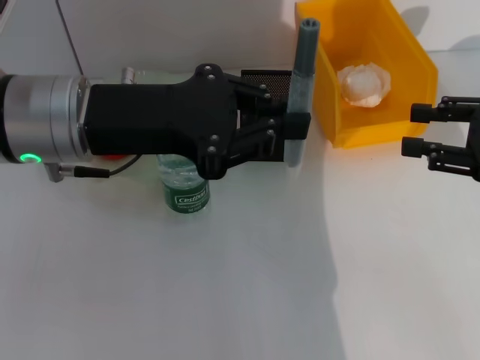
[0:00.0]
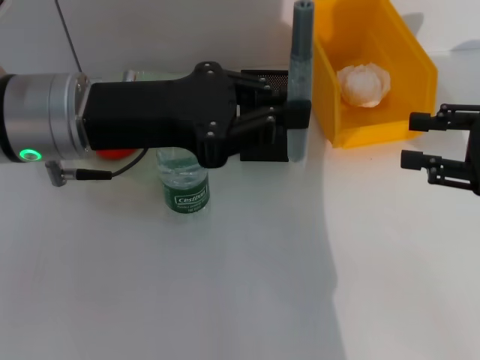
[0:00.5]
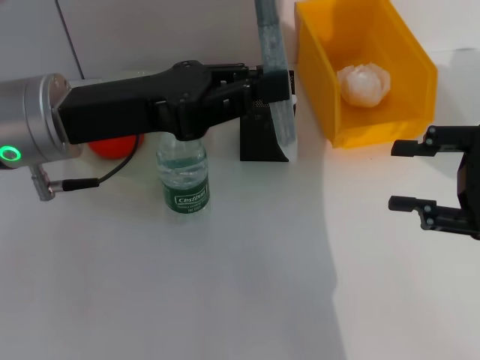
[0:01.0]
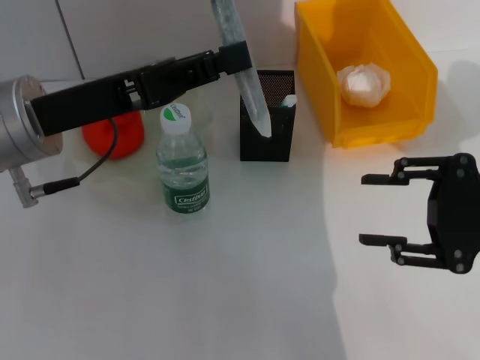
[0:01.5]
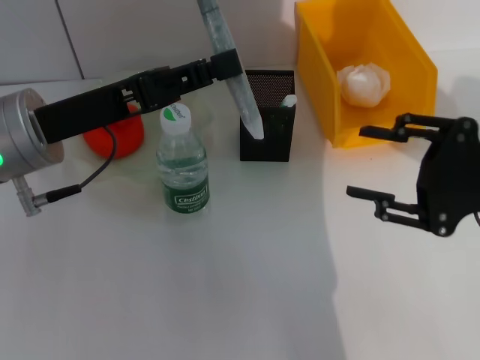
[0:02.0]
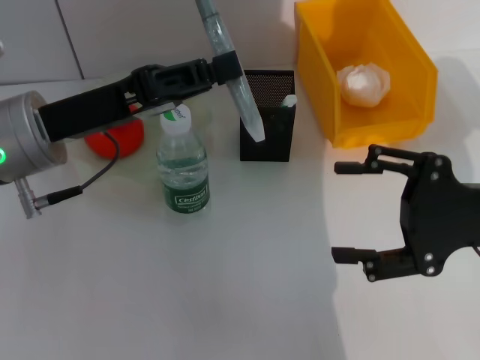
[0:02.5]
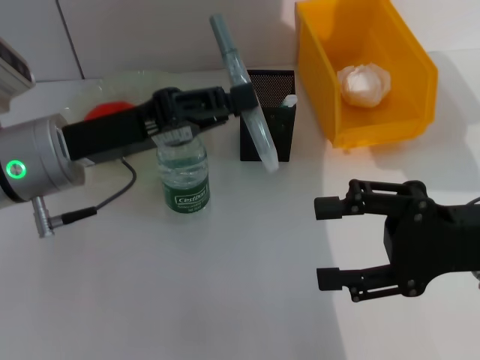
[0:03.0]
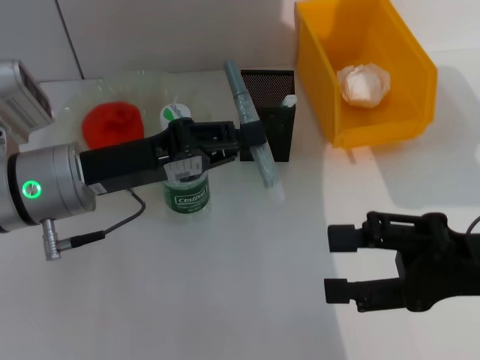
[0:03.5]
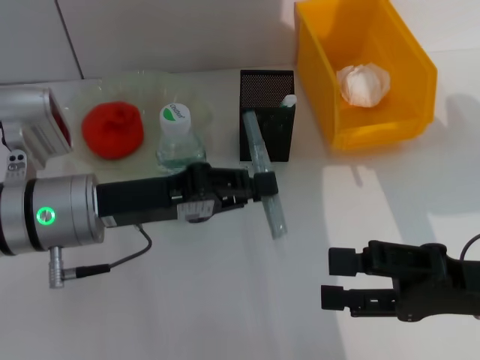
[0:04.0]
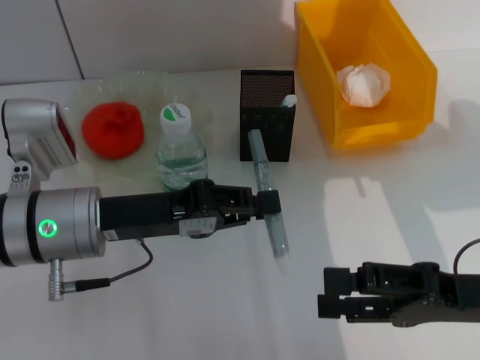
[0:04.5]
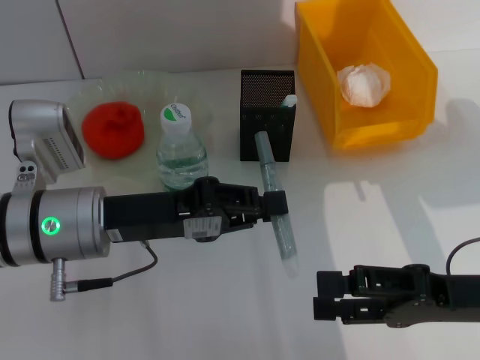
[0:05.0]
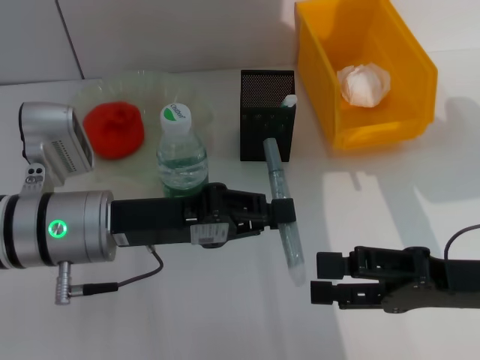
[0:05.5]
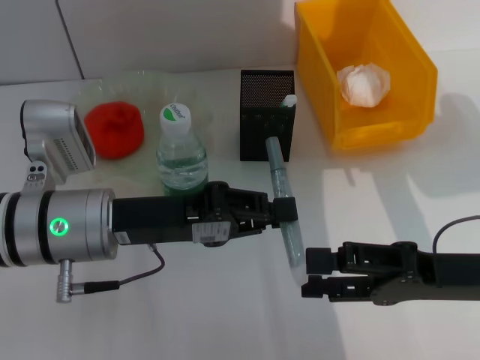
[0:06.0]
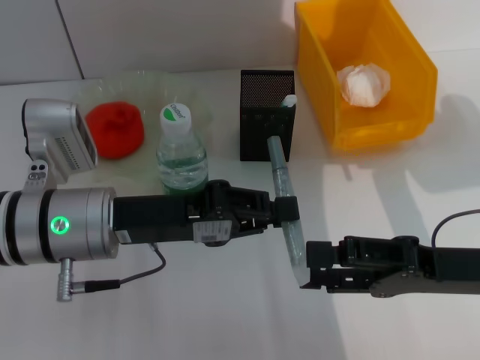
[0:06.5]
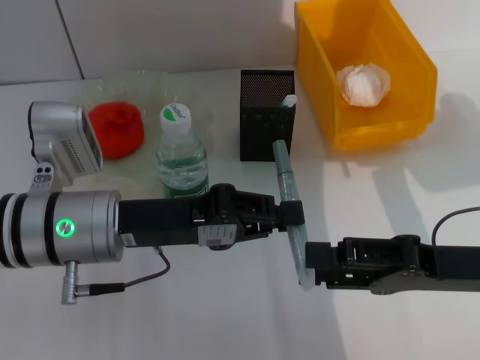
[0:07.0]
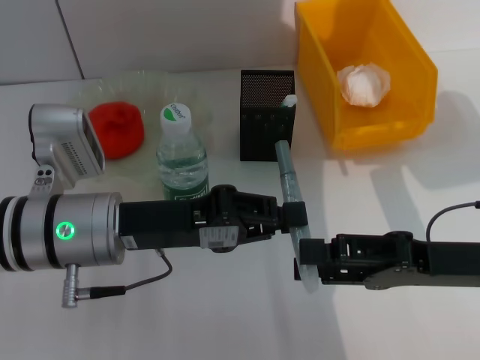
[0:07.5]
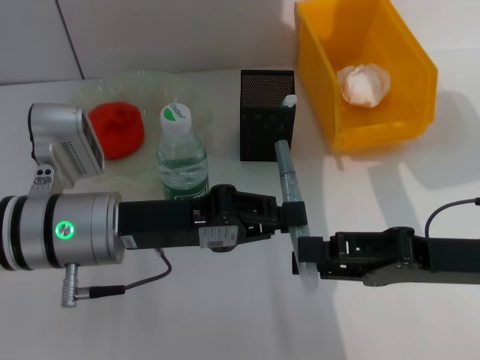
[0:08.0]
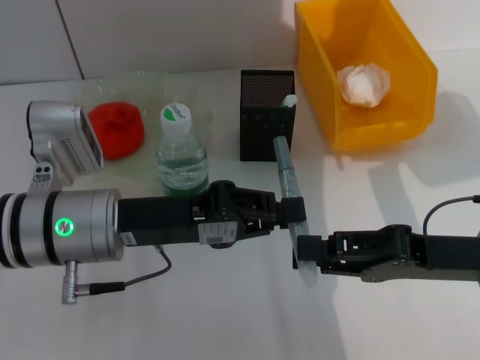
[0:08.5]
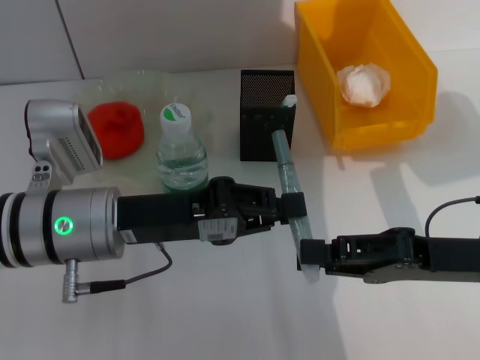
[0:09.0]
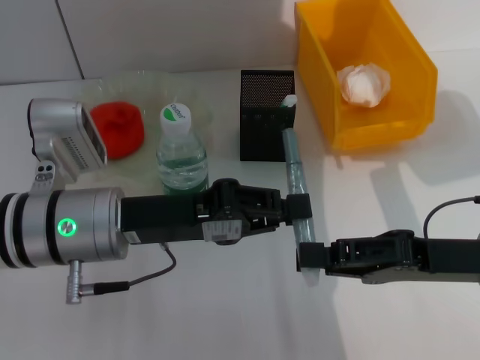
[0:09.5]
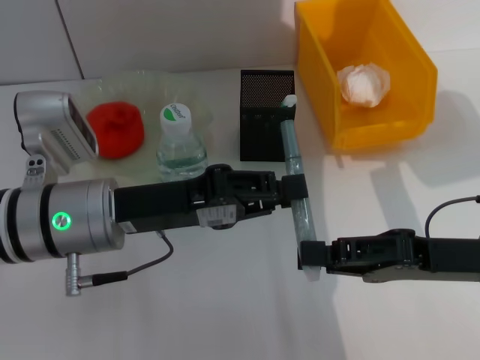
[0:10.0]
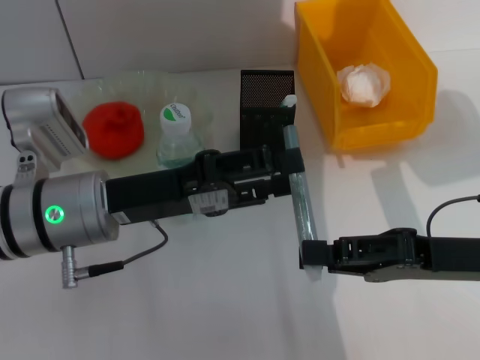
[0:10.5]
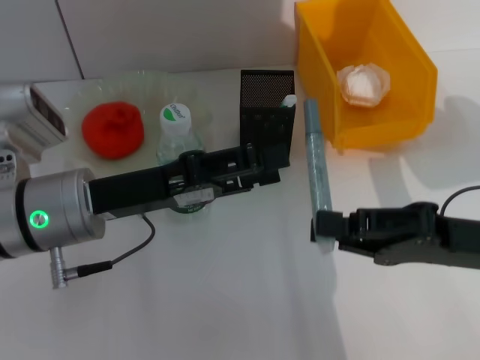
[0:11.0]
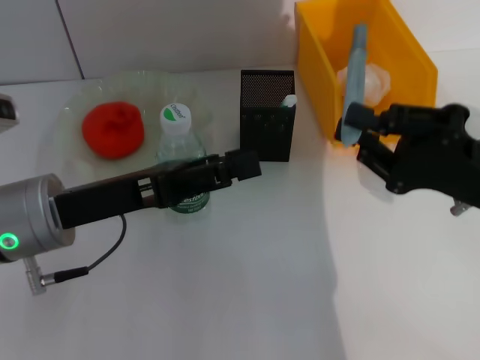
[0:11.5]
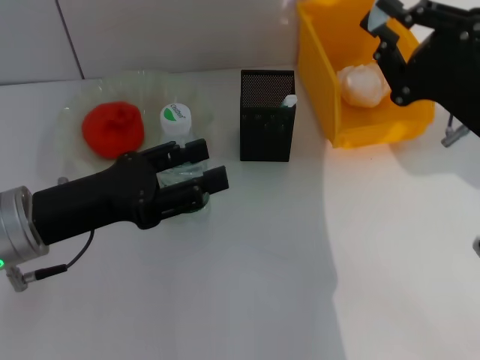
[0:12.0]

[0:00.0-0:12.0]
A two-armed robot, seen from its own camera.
Step, 0:00.0 to 0:10.0: Pass the gray glue from the left hand to the right hand.
0:00.0 to 0:02.0: The right gripper travels to the left by some 5 cm. Meanwhile the left gripper ends up about 5 cm from where it was.
0:02.0 to 0:04.0: The left gripper heads downward, covering some 5 cm. Meanwhile the right gripper is displaced backward by approximately 5 cm, and opens up.
0:06.0 to 0:08.0: The grippers stay close to where they were, moving slightly.
0:08.0 to 0:10.0: The right gripper closes.
0:10.0 to 0:12.0: The left gripper heads to the left, covering about 5 cm, and opens its fingers, while the right gripper heads forward, covering about 5 cm.

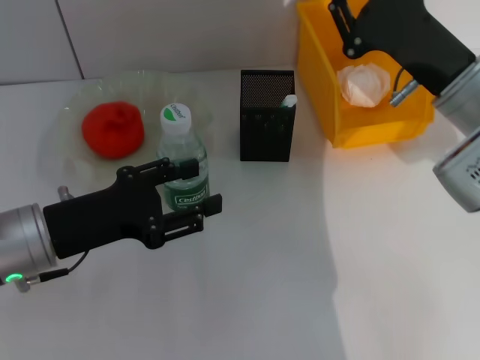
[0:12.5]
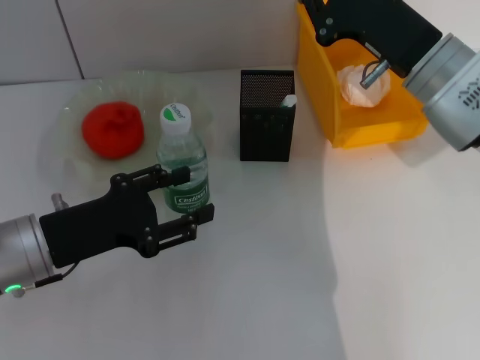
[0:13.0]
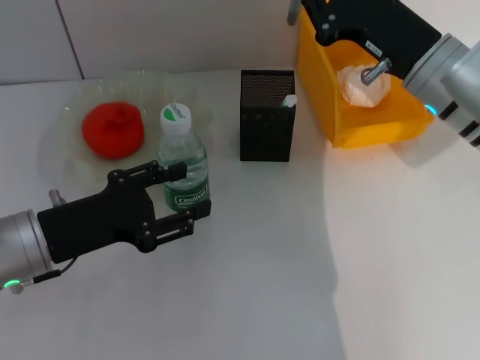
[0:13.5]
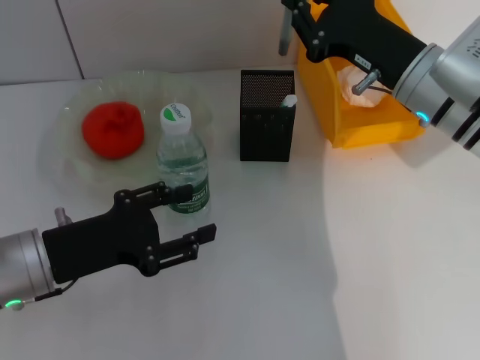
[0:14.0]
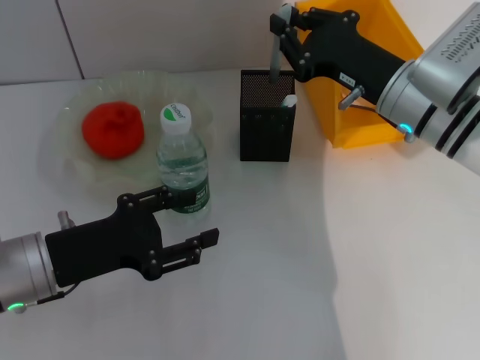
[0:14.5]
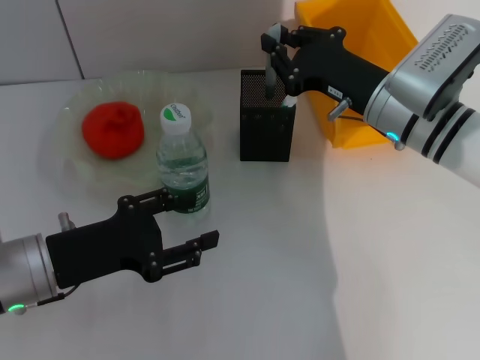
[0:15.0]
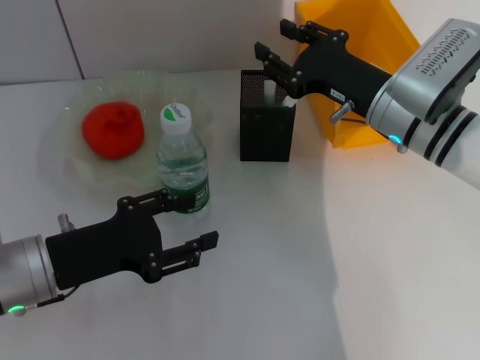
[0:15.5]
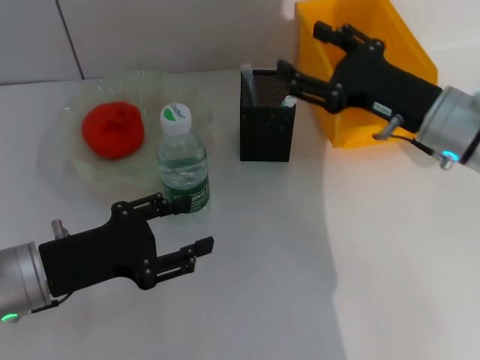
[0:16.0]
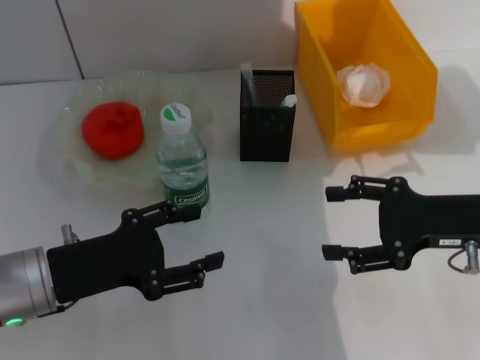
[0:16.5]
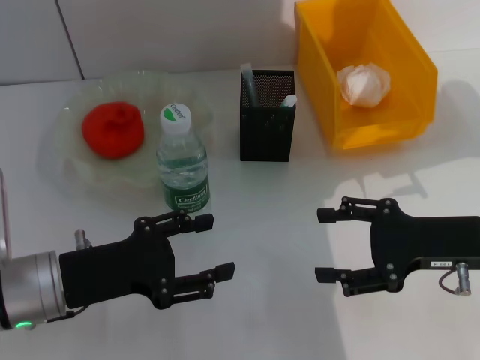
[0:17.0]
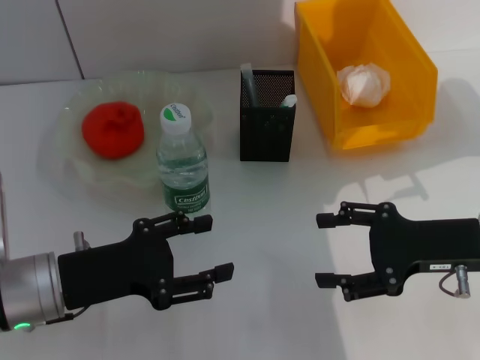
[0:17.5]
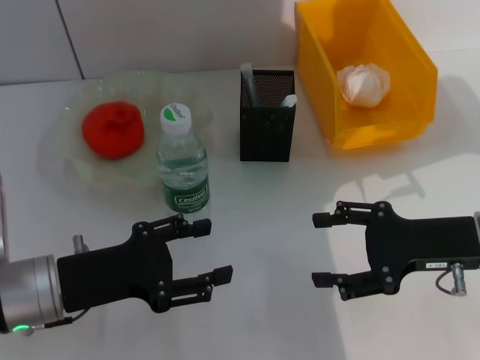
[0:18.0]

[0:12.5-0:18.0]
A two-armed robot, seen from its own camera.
Step, 0:12.5 to 0:15.5: Place the gray glue into the pen holder with the right hand.
0:14.5 to 0:16.0: The right gripper opens.
0:16.0 to 0:18.0: The right gripper travels backward by approximately 5 cm.

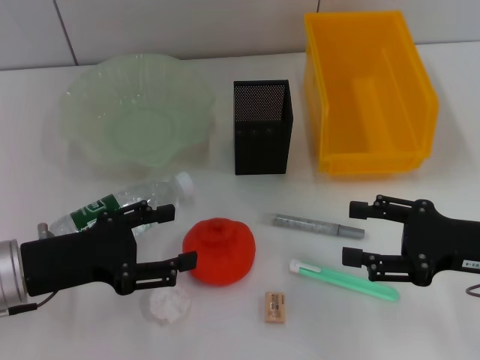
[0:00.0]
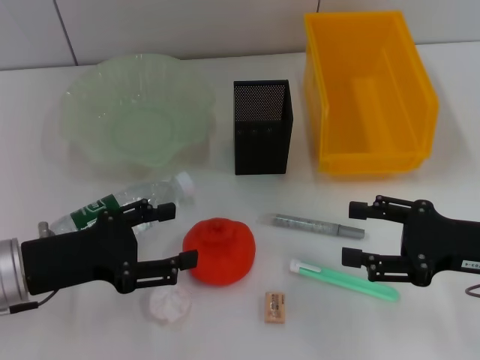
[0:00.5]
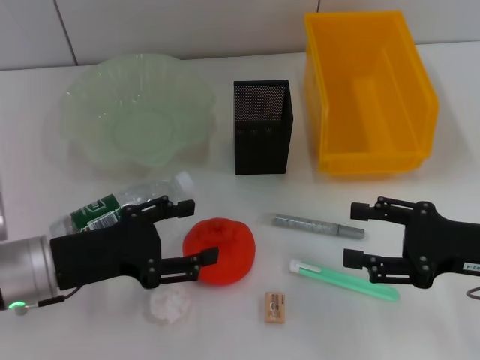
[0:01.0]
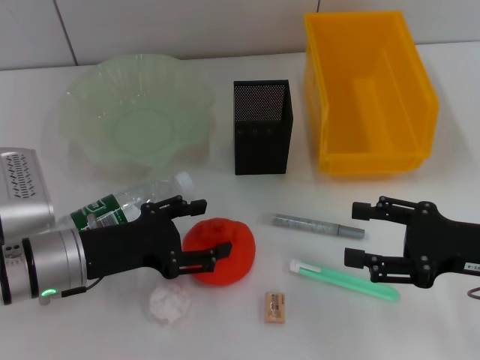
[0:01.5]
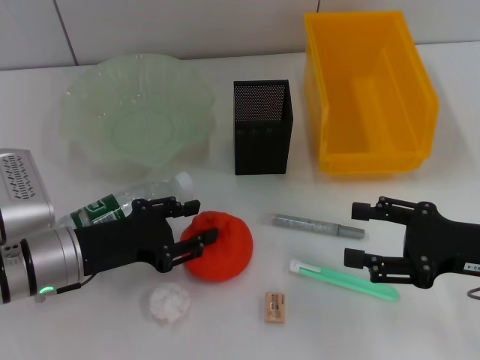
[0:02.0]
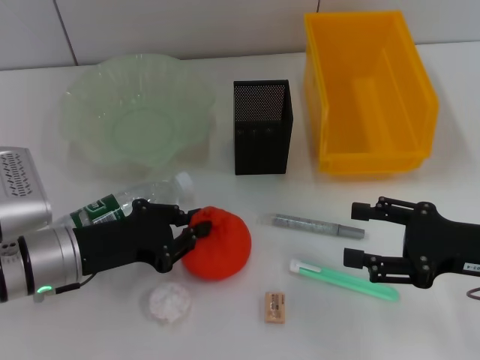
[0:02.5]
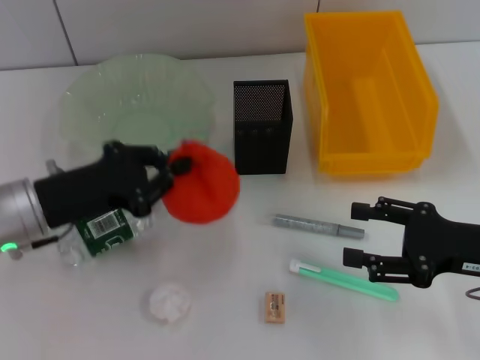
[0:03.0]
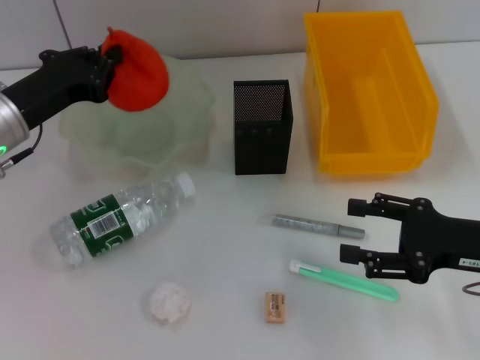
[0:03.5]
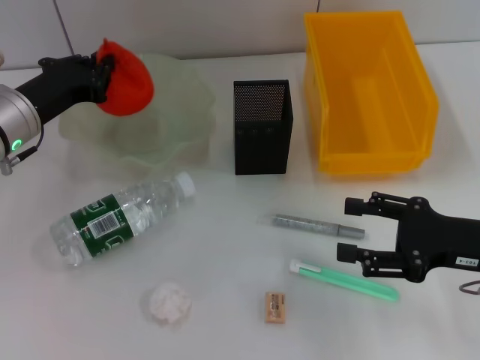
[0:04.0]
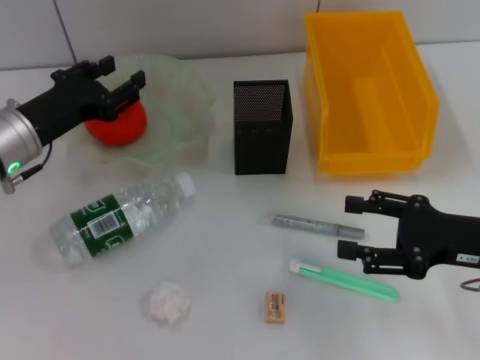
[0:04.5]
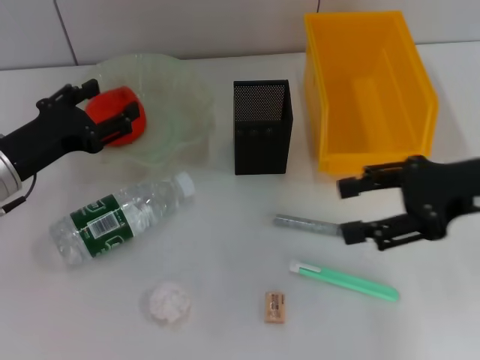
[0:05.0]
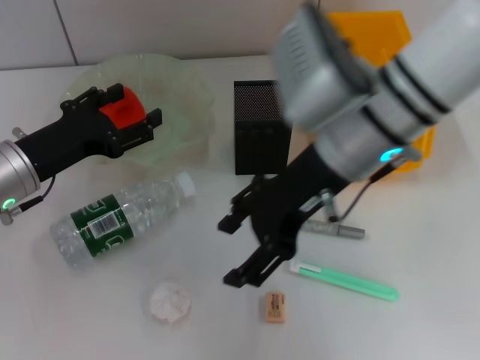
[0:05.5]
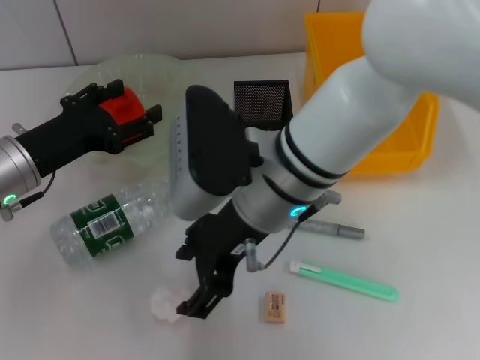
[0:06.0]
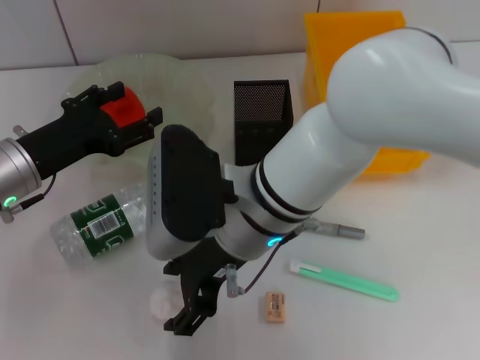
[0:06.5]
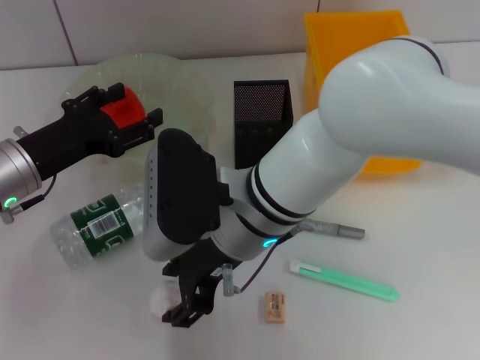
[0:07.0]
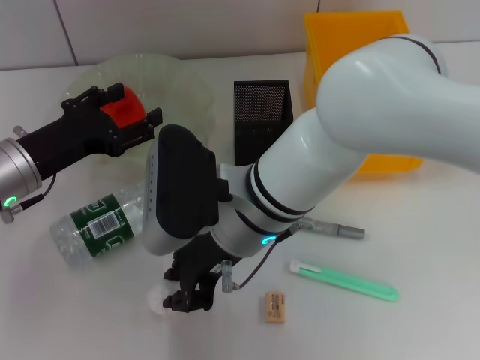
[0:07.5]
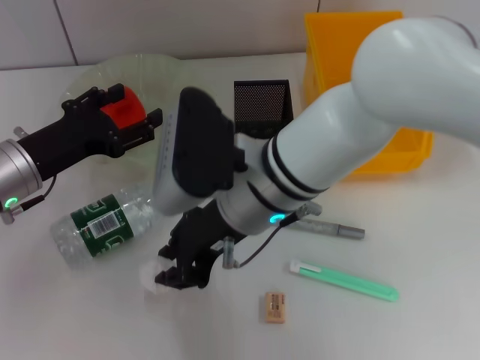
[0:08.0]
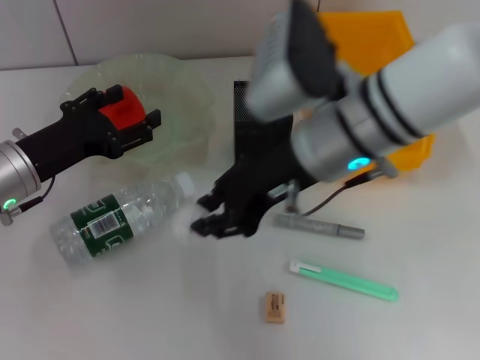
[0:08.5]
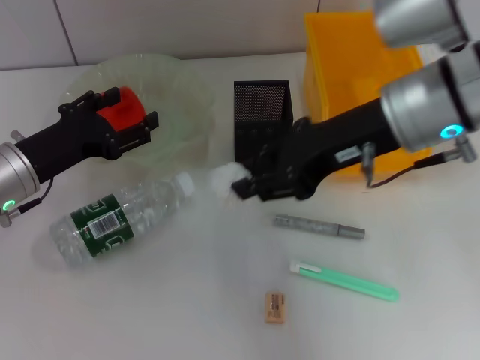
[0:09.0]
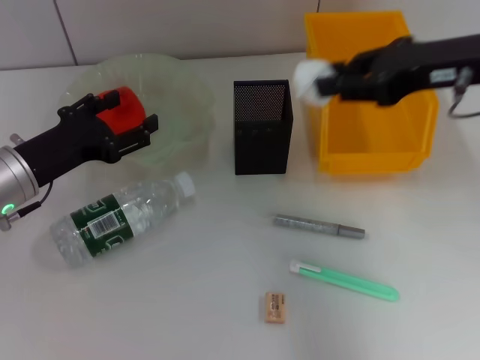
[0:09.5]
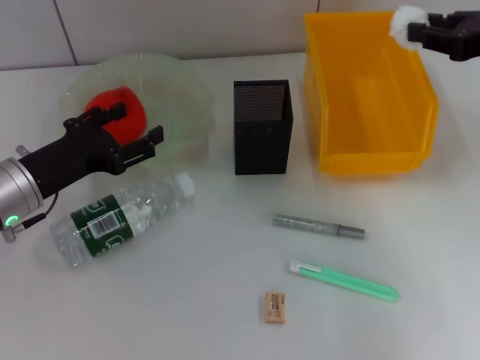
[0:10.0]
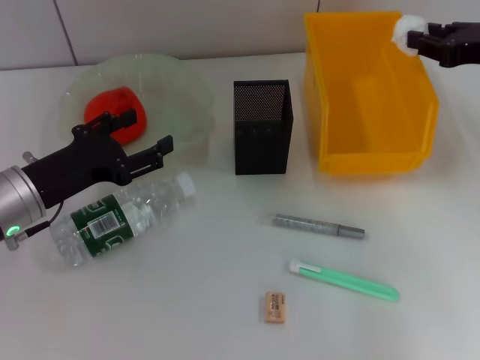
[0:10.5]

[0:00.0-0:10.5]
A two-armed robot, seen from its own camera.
Step, 0:00.0 to 0:02.0: Grab the orange with the left hand.
Step, 0:02.5 to 0:04.0: Place the orange into the fruit bowl with the left hand.
Step, 0:04.5 to 0:07.0: Grab the paper ball with the right hand.
0:00.0 to 0:02.0: The left gripper ends up approximately 5 cm from where it was.
0:02.0 to 0:04.0: The left gripper goes some 10 cm forward and upward, and closes.
0:04.0 to 0:06.5: The left gripper shifts some 5 cm backward, and opens up. Meanwhile the right gripper is displaced to the left by about 25 cm.
0:06.5 to 0:08.5: The right gripper goes about 10 cm to the right and upward, and closes up.
0:08.5 to 0:10.5: The right gripper travels to the right by some 20 cm.
